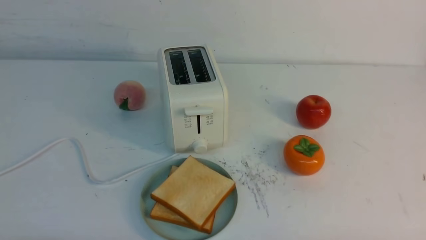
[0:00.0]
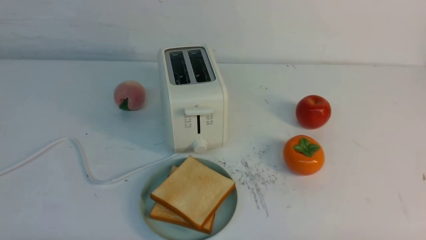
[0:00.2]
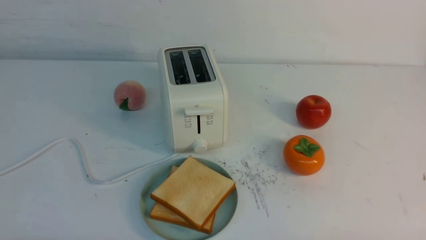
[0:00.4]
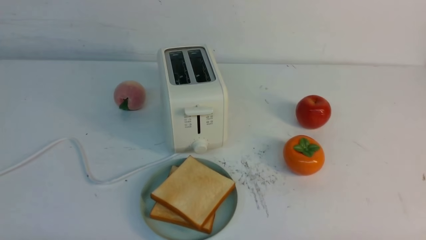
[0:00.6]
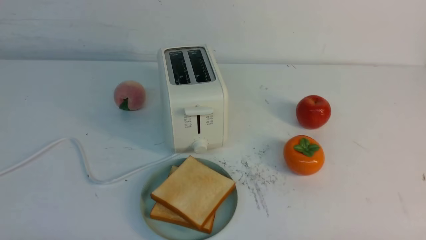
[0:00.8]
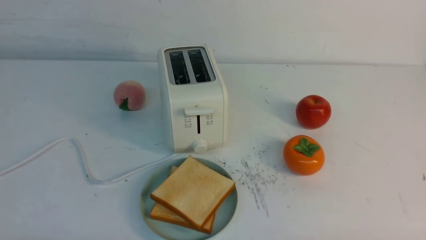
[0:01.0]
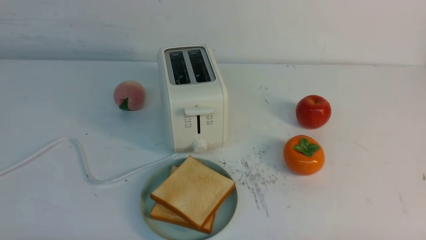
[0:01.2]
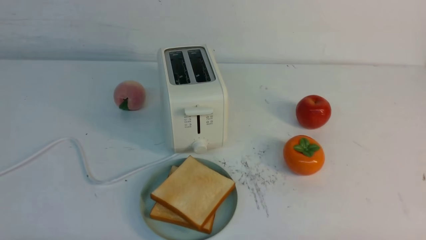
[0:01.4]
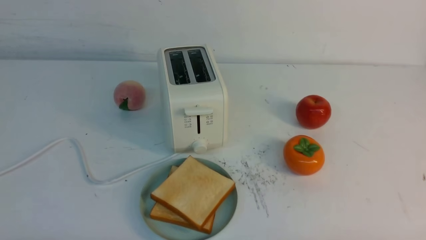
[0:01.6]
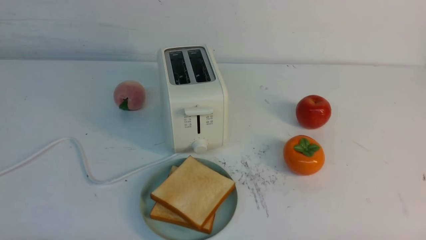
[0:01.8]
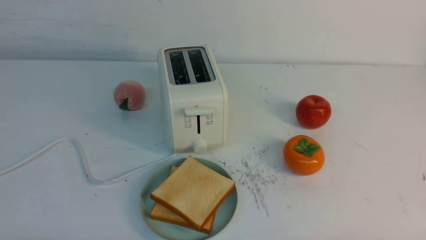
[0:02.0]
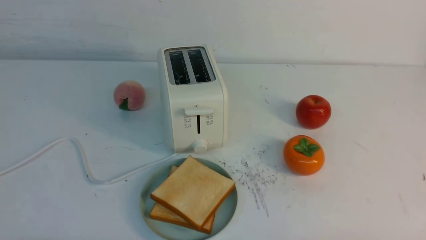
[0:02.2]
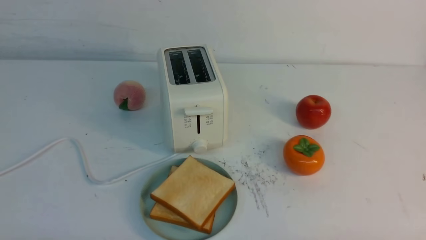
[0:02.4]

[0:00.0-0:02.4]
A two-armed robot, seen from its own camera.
Task of the whole recording: take toasted bread from bread machine on white table place on plate.
0:00.0 to 0:02.4: Both grippers stay about where they are.
